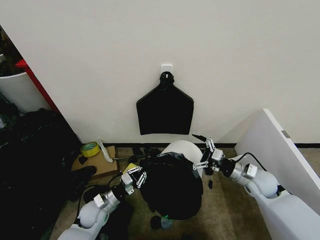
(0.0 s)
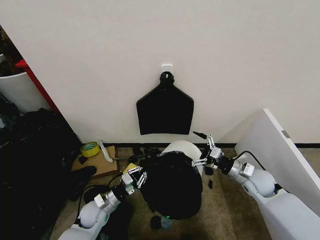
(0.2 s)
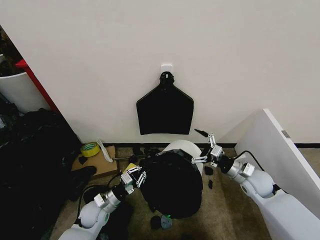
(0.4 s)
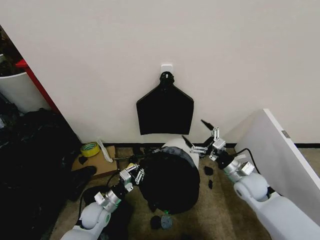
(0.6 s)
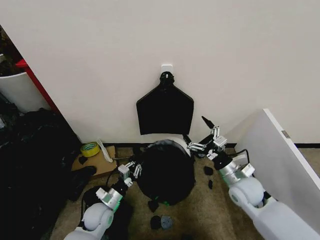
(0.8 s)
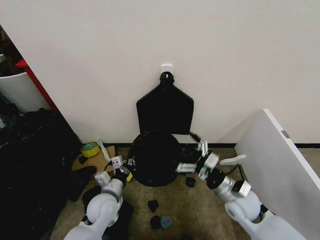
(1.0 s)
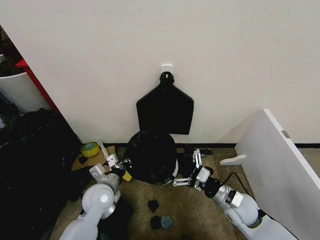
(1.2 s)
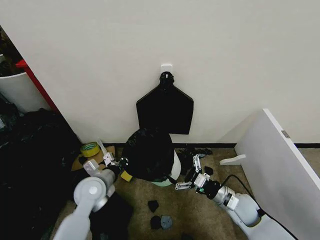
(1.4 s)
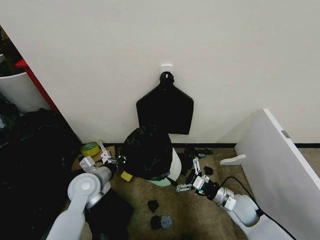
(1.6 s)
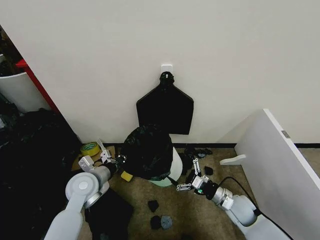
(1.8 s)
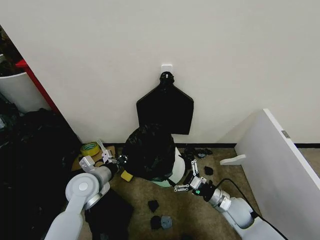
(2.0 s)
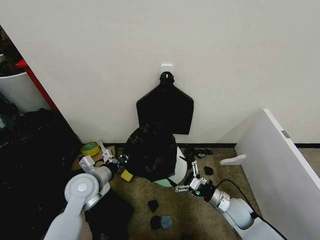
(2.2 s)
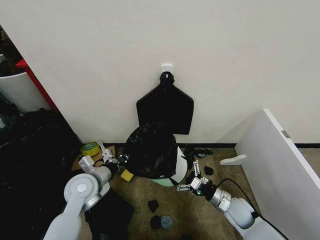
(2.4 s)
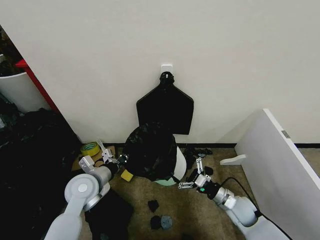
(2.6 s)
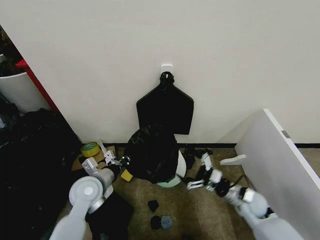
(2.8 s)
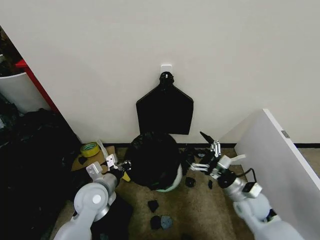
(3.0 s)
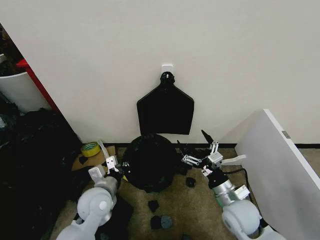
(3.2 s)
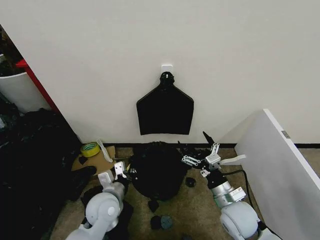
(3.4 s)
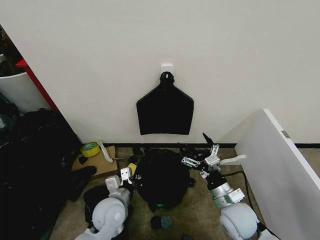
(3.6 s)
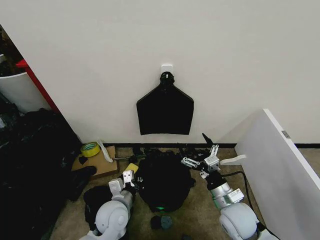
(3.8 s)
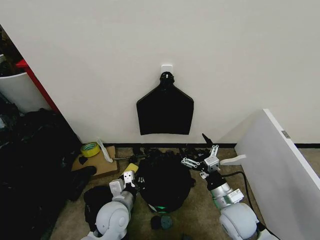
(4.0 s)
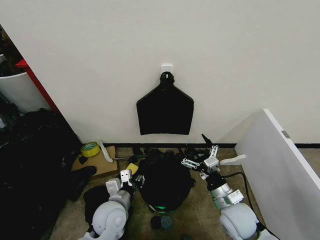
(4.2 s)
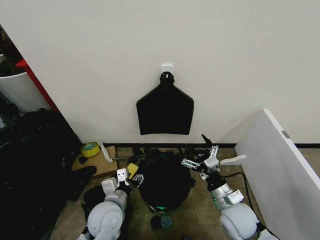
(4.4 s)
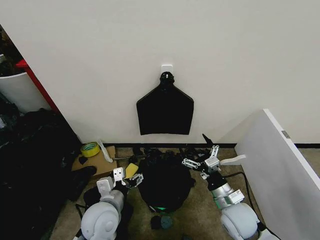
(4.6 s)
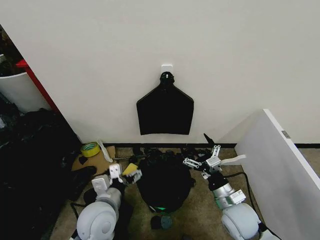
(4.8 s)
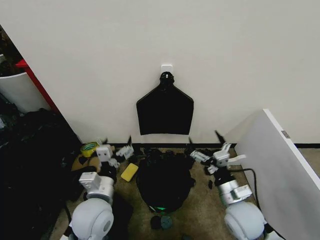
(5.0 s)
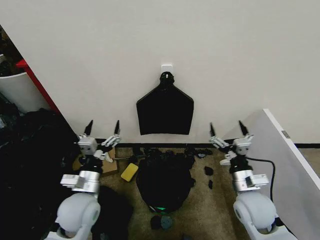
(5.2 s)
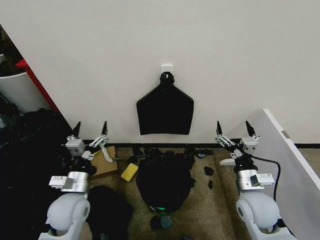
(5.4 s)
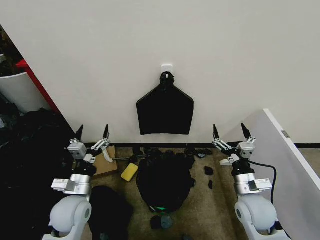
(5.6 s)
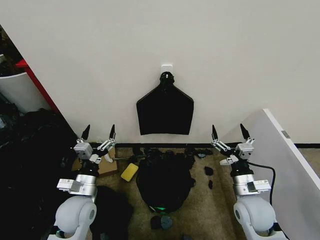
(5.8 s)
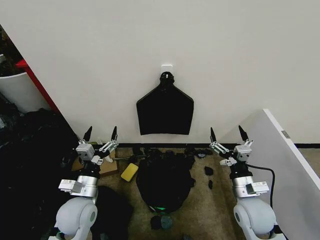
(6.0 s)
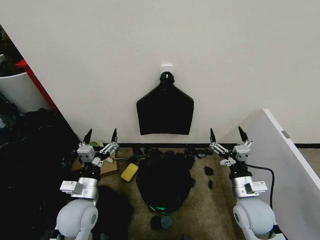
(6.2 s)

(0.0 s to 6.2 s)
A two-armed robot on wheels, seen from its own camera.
Task of the whole recording: Place the garbage bag over the trash bin.
0.0 s - 1.6 s: The left gripper travels upward by some 15 cm. The right gripper moves downward, to the left and backward, approximately 10 cm.
1.6 s - 3.2 s: The left gripper shifts by approximately 5 cm, while the right gripper moves upward, some 10 cm.
3.2 s - 4.6 s: The left gripper moves approximately 5 cm, and opens its fingers.
4.6 s - 6.2 s: The left gripper heads to the left, covering about 5 cm.

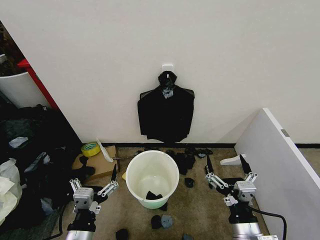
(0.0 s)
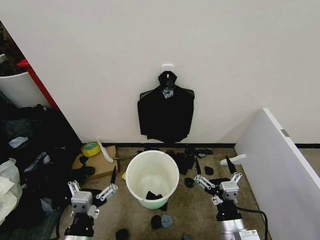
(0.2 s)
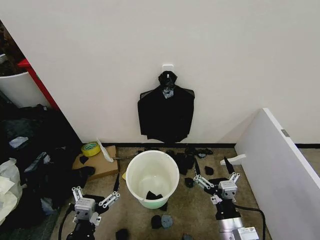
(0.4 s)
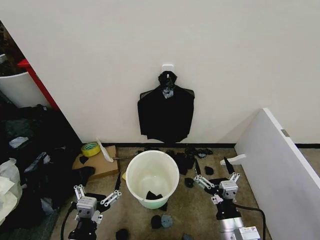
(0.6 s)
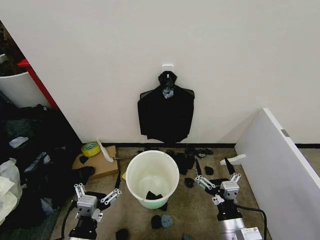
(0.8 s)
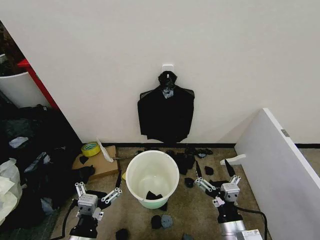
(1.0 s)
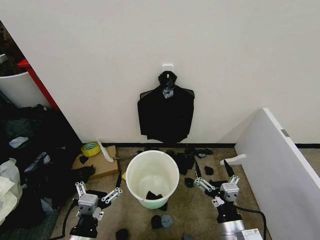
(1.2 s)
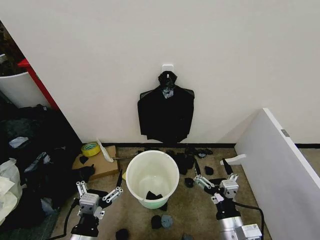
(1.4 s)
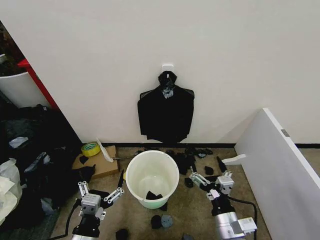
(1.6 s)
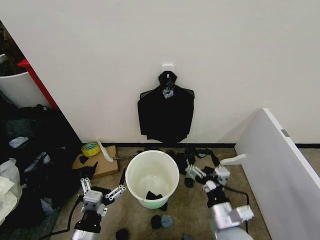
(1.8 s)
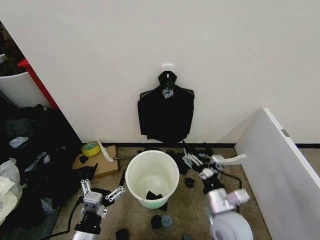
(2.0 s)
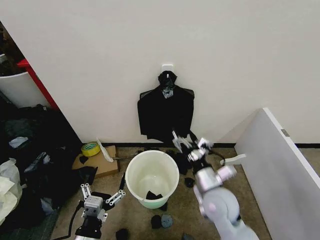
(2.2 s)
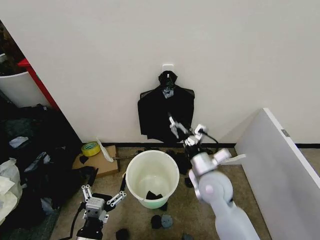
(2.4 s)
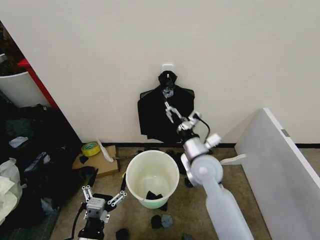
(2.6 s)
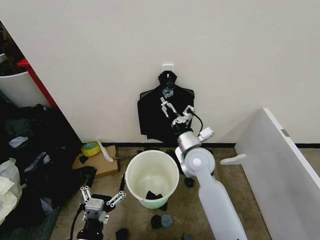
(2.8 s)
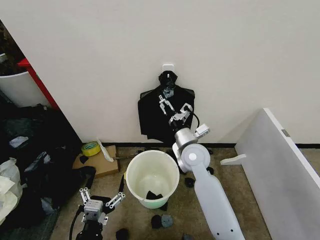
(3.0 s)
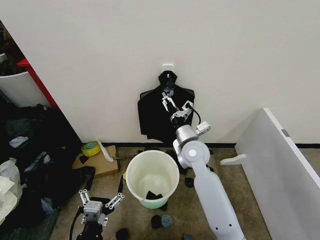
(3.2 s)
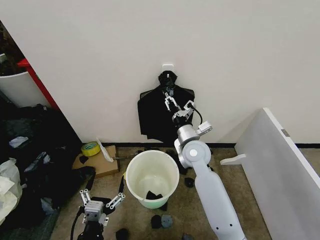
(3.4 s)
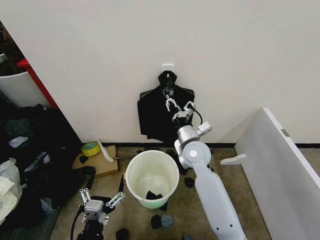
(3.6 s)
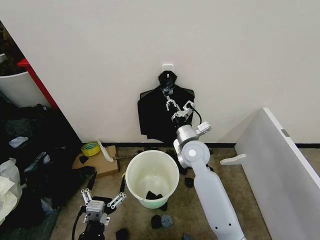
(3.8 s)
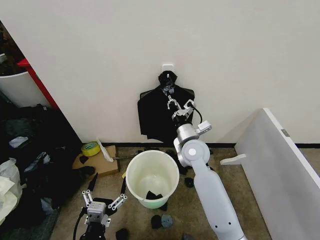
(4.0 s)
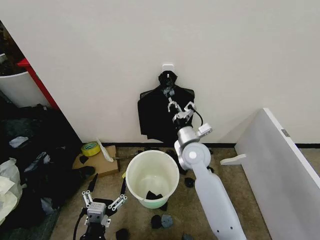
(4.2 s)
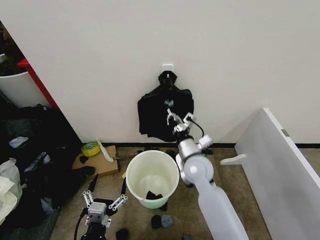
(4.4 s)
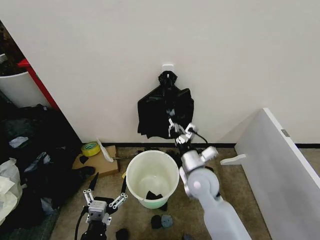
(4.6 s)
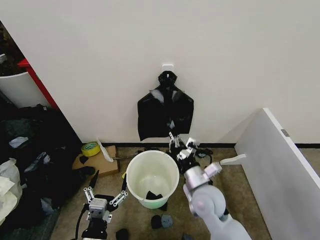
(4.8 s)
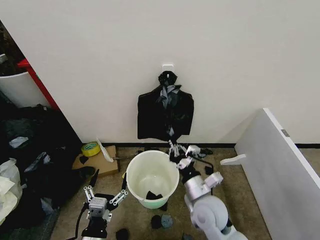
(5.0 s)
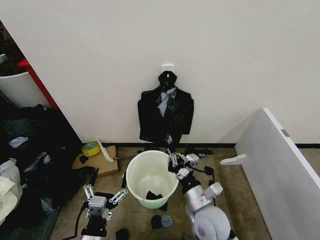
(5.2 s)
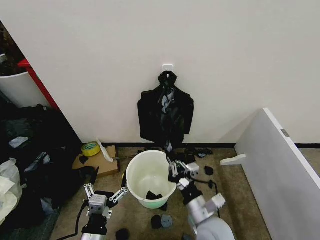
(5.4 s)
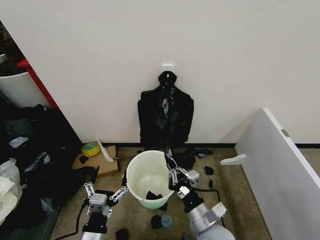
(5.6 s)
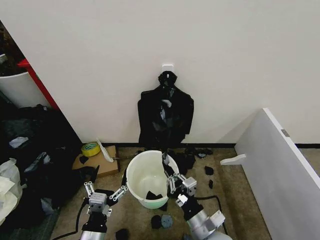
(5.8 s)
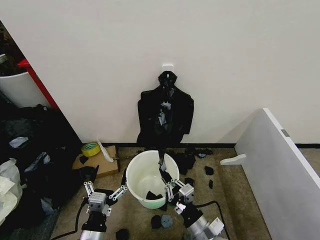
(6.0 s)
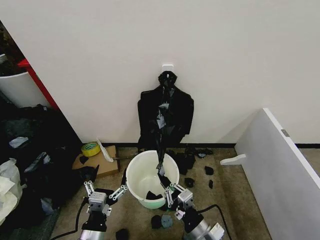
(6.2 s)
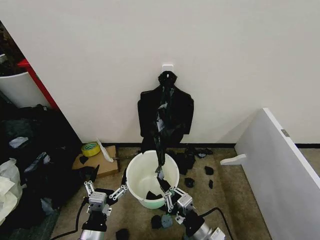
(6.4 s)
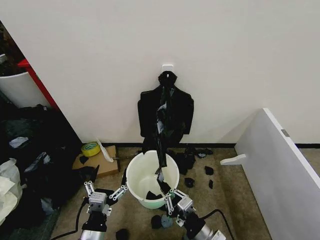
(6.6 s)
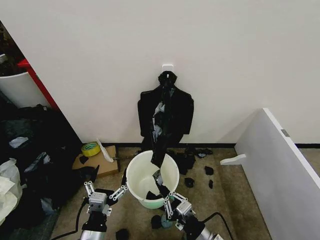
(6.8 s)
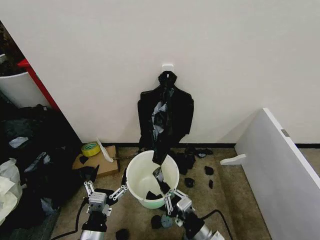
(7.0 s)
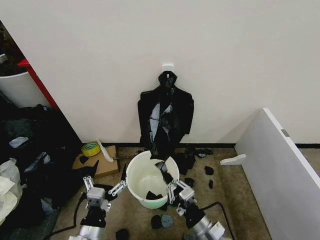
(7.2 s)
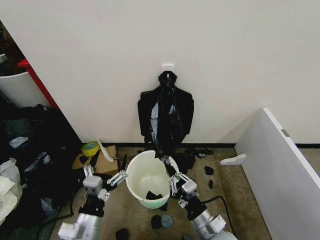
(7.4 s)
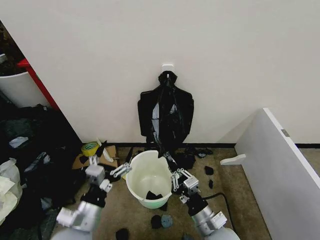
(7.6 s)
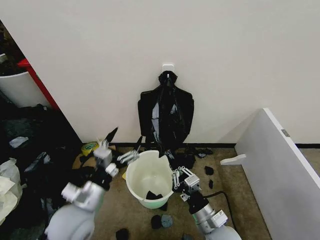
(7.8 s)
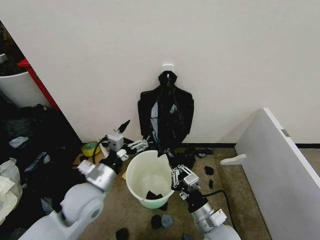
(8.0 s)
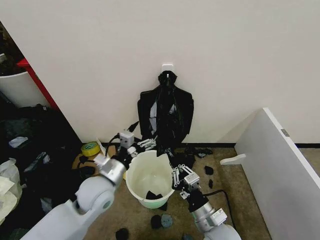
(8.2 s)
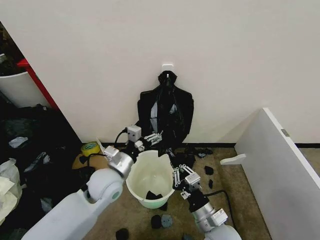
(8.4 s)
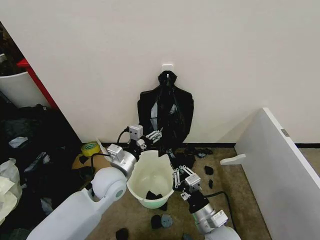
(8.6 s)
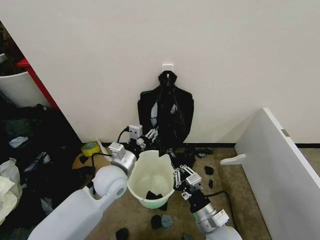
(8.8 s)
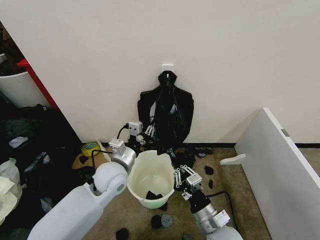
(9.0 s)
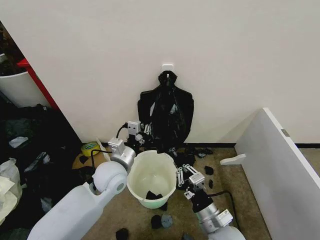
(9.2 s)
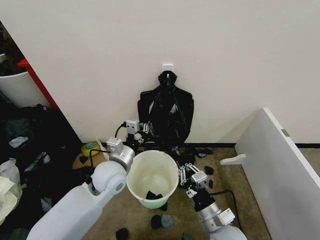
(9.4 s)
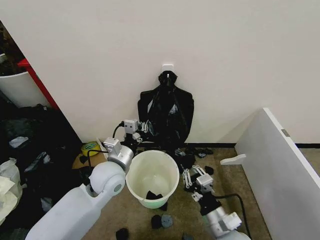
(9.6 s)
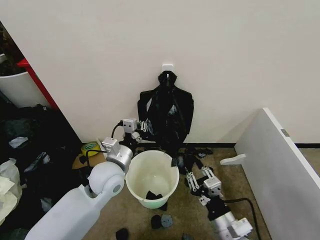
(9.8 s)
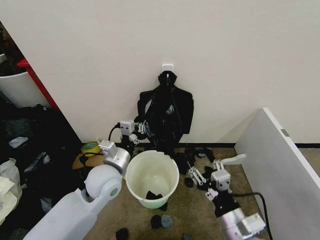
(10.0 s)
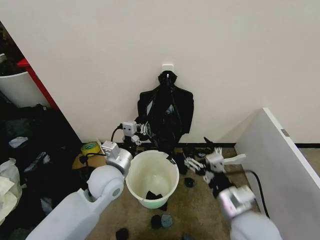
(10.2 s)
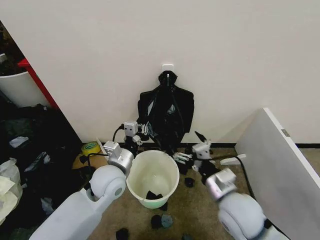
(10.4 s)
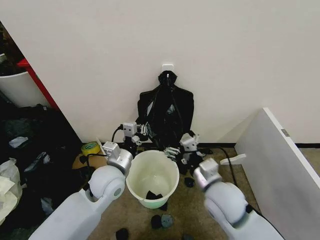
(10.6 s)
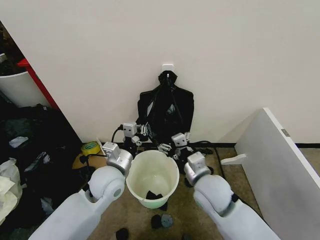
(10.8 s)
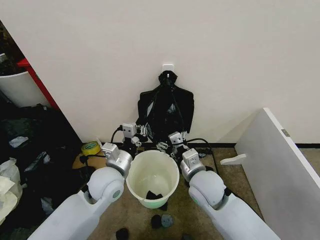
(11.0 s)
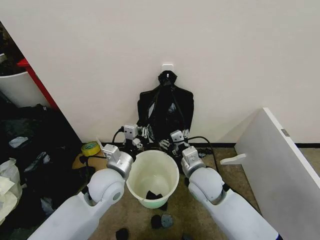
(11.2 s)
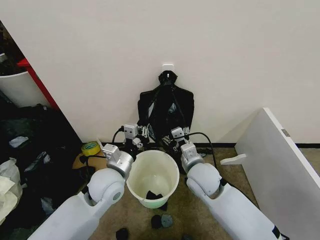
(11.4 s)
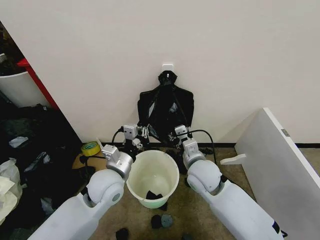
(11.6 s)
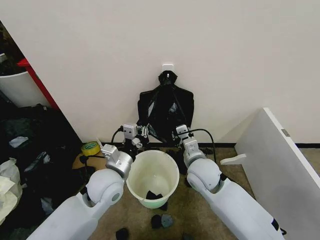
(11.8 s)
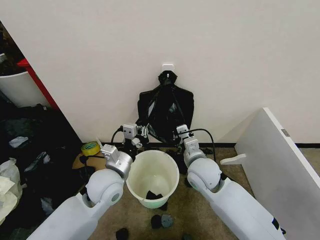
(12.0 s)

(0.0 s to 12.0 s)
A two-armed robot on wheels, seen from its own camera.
Task of the whole recording: Place the garbage bag over the trash bin.
1.6 s - 3.0 s: The right gripper travels forward by about 25 cm.
3.0 s - 4.4 s: The right gripper closes its fingers.
4.4 s - 6.0 s: The right gripper is displaced backward by some 20 cm.
6.0 s - 7.6 s: The left gripper heads upward and forward, covering some 10 cm.
7.6 s - 9.0 s: The left gripper heads forward and to the right, covering approximately 15 cm, and closes.
9.0 s - 10.4 s: The right gripper heads upward, covering approximately 10 cm, and opens up.
10.4 s - 12.0 s: The right gripper travels forward and to the left by roughly 15 cm, and closes.

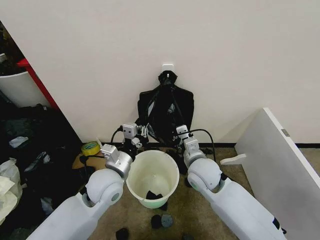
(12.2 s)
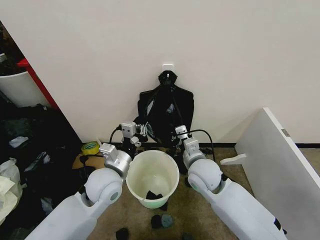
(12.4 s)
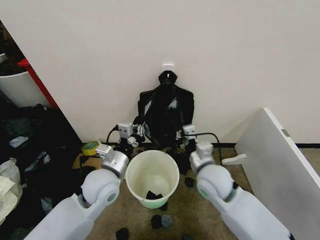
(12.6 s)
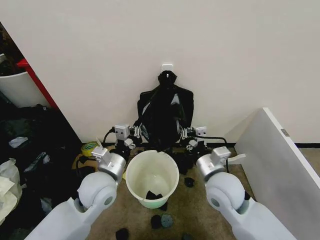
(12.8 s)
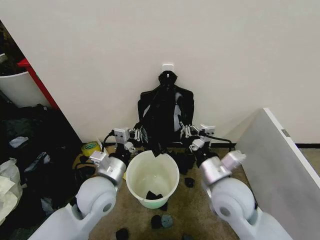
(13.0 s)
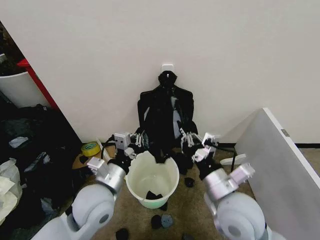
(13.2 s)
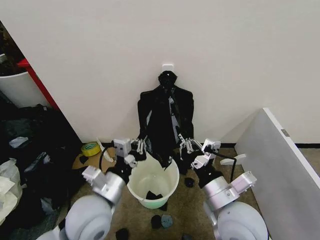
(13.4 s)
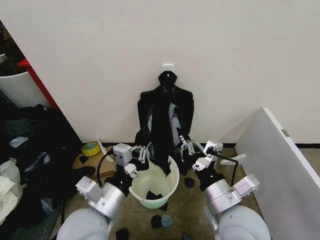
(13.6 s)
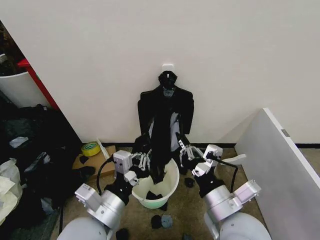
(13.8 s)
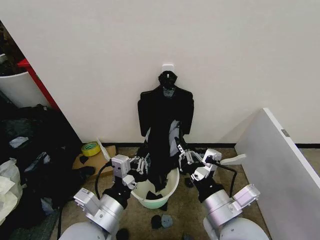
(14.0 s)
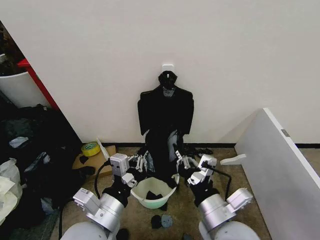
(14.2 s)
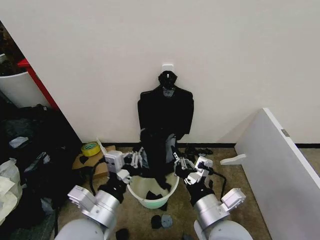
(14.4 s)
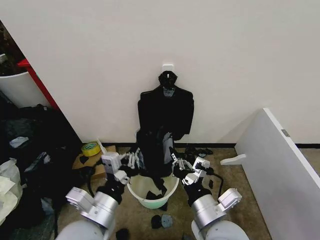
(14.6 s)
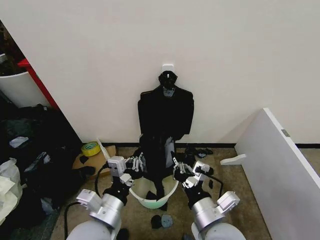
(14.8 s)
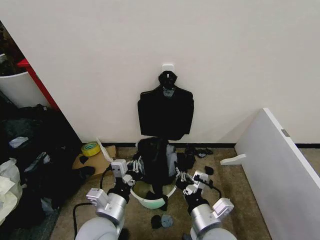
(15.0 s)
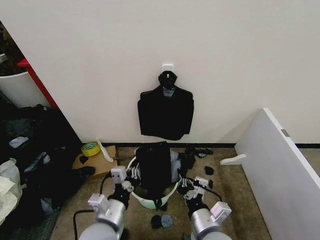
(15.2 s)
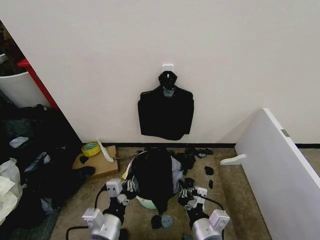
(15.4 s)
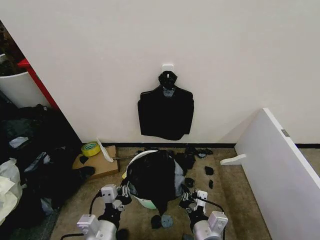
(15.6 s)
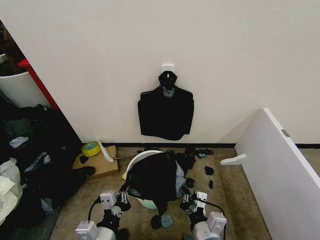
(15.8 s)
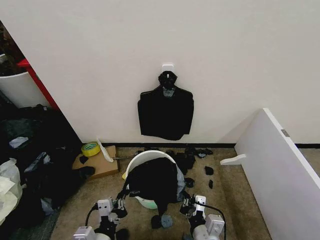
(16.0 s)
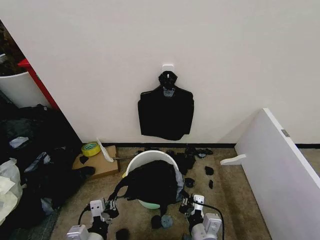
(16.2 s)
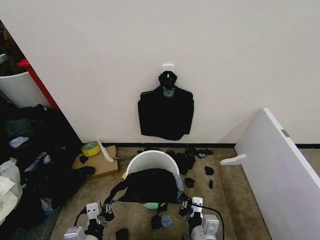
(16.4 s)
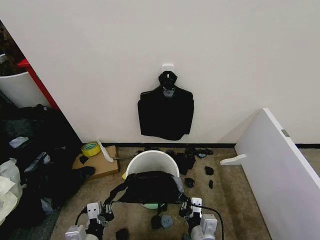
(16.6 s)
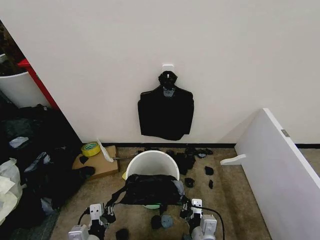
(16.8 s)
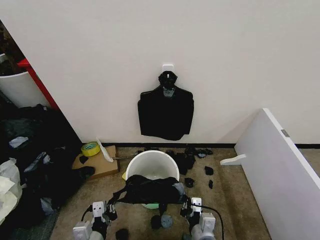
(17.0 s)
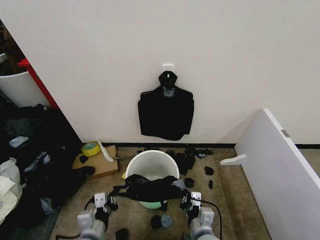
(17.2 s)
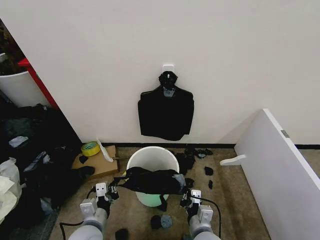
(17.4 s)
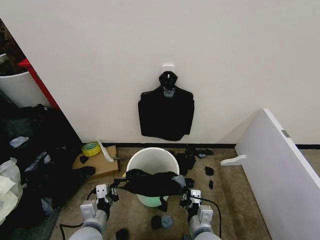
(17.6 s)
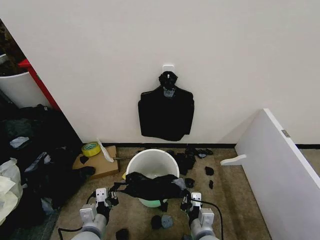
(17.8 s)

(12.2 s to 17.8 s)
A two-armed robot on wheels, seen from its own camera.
Task of the whole recording: Place the garbage bag over the trash bin.
12.2 s - 13.6 s: The two grippers go about 15 cm backward.
13.6 s - 15.0 s: The grippers both shift downward by about 10 cm.
15.0 s - 16.4 s: The left gripper moves backward, downward and to the left, roughly 10 cm; the right gripper is displaced downward by roughly 5 cm.
16.4 s - 17.8 s: The left gripper moves forward, approximately 5 cm.
